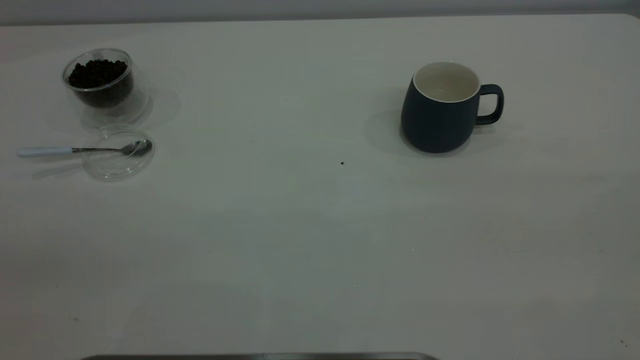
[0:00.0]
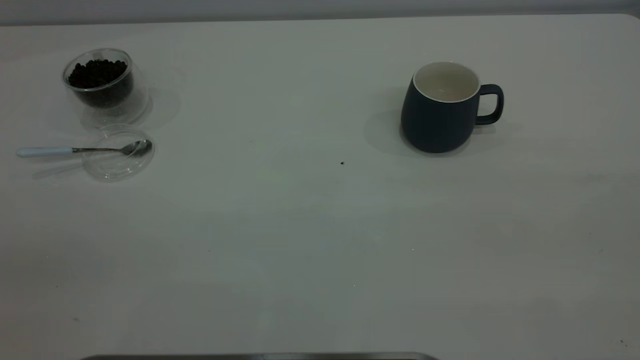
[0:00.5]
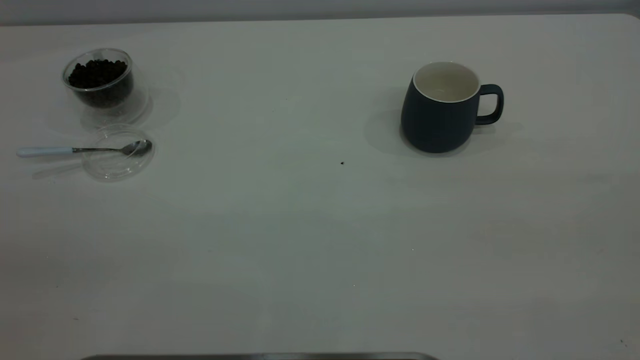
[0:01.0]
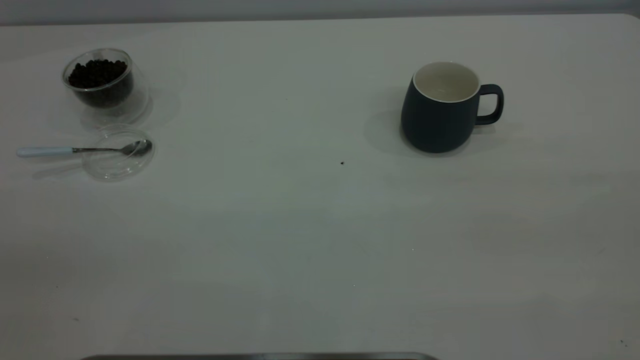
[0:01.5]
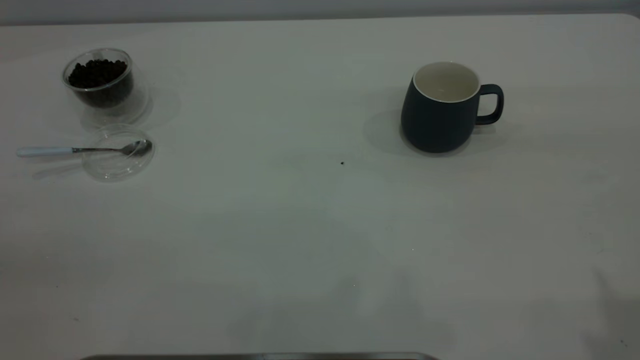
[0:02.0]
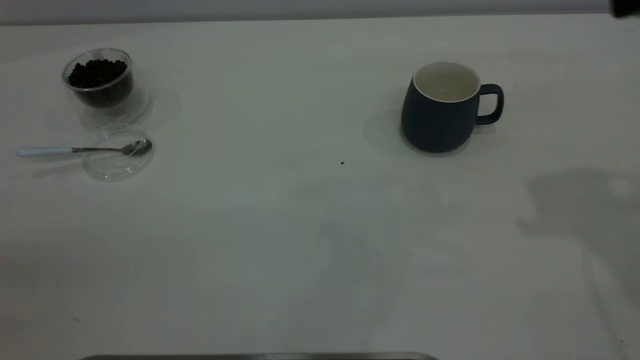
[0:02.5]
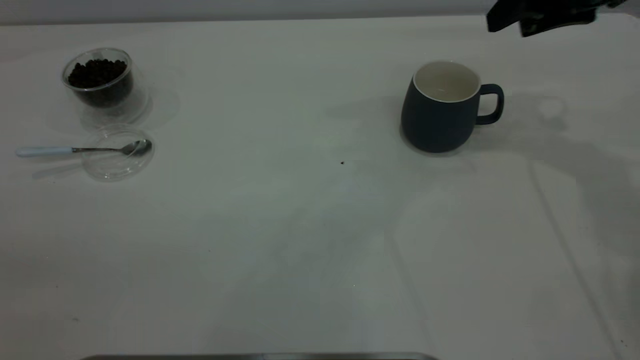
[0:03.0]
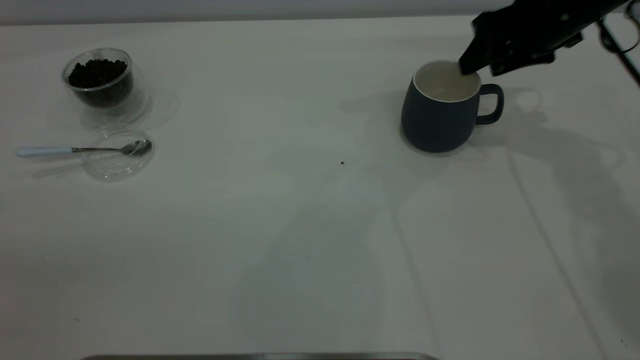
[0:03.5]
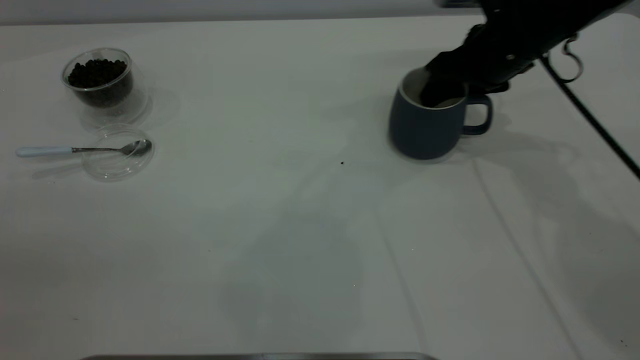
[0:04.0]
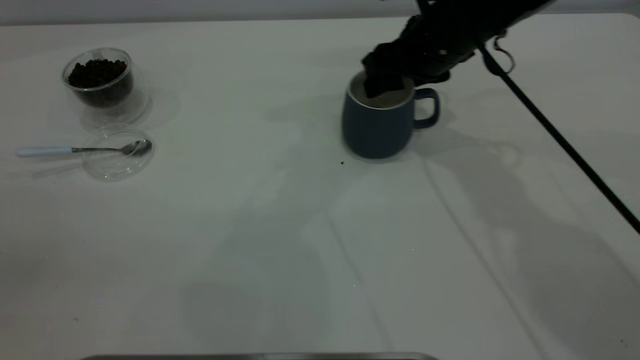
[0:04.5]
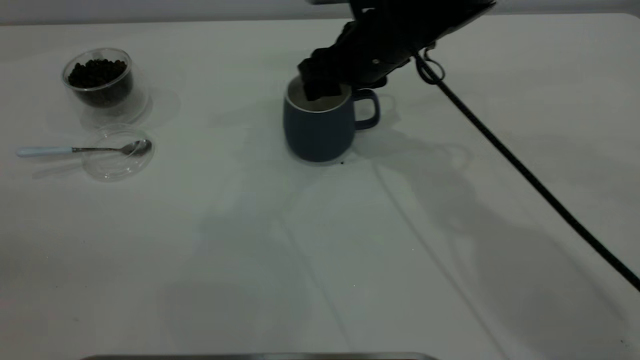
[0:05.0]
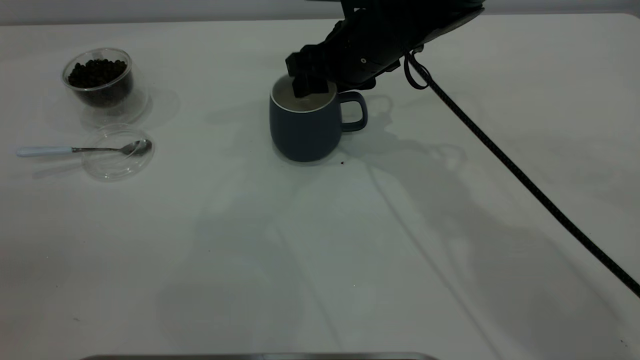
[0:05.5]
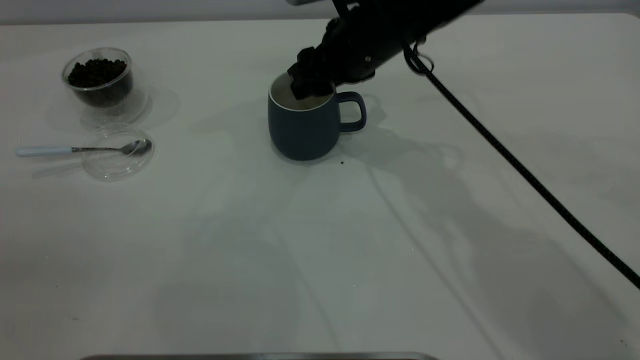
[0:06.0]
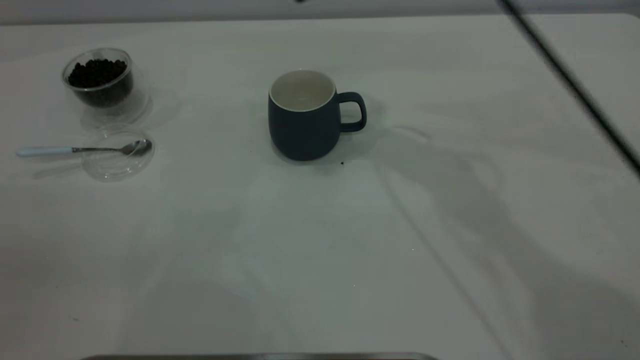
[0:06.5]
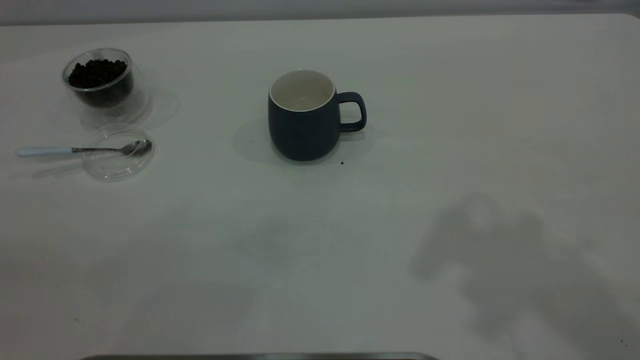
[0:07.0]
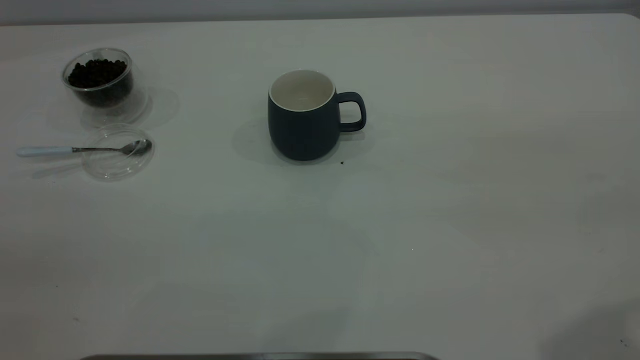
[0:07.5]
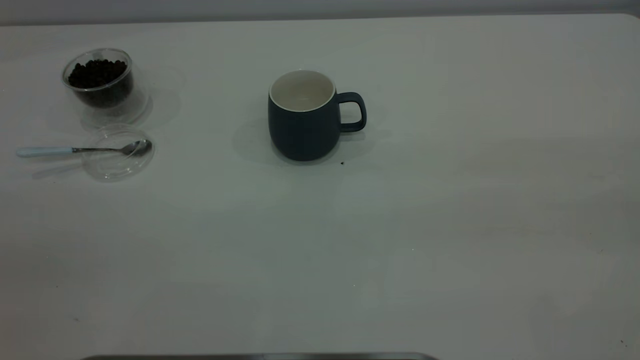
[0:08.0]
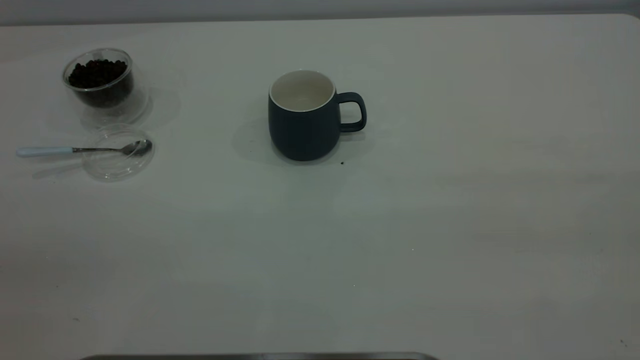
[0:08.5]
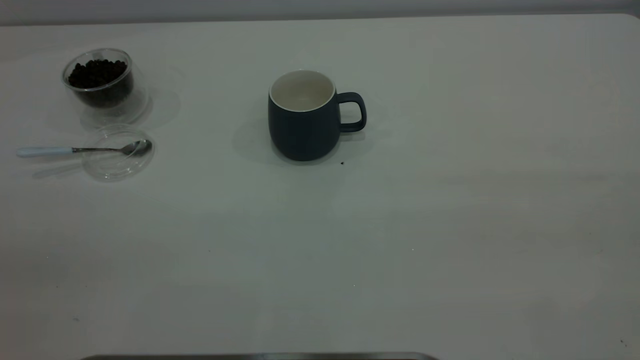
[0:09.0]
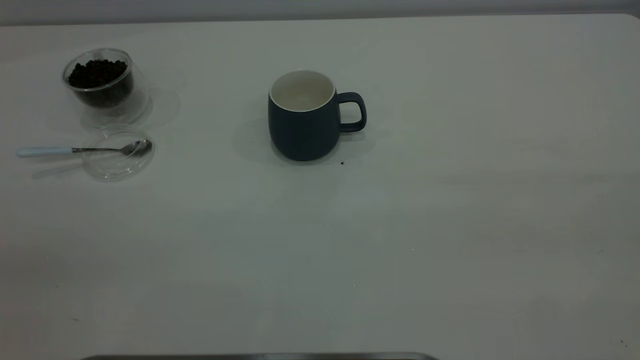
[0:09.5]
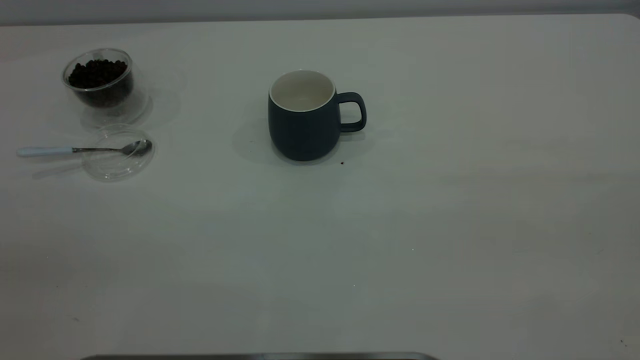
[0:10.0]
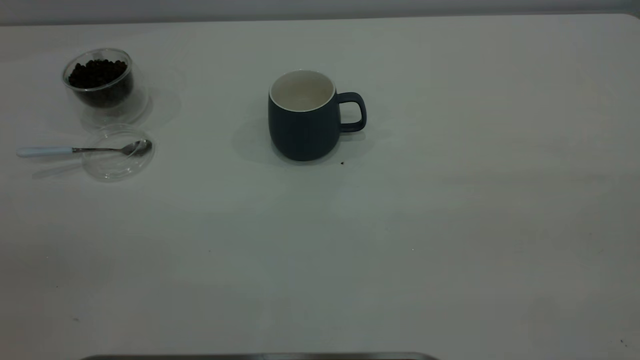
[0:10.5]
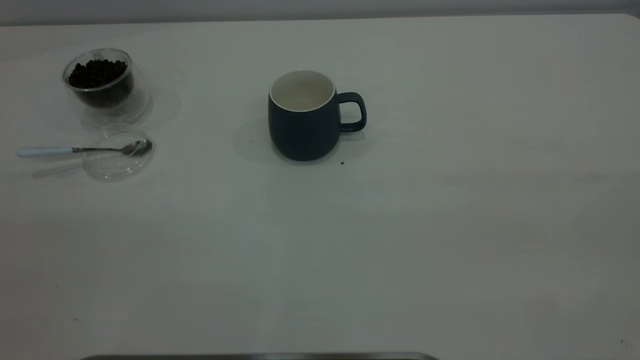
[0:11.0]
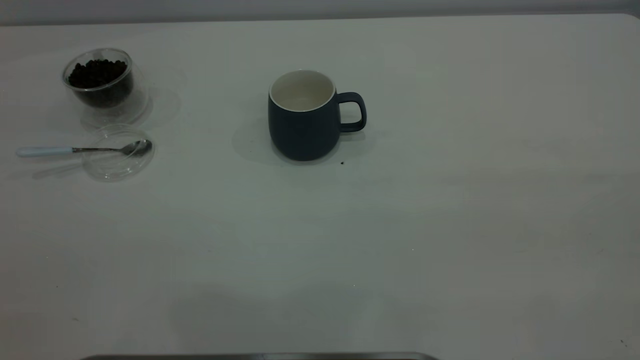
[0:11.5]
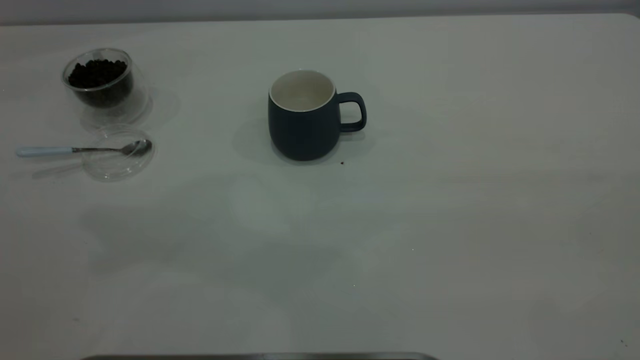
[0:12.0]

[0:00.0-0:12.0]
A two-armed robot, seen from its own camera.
Task of the whole recording: the right gripper place the grey cup in the center of the table, the left gripper take the blue spoon from the cup lid and scoop out the coffee beans from the coffee cup and put them into the grey cup, the left gripper put the spoon back into the cup lid.
Step, 0:00.0 to 0:06.0: Move the cup to the center of view.
0:02.0 to 0:04.0: The right gripper goes approximately 40 cm forward and downward.
0:04.0 to 0:06.0: The right gripper is displaced to the left by about 15 cm.
0:06.0 to 0:08.0: The right gripper is displaced backward, to the right and upward by approximately 50 cm.

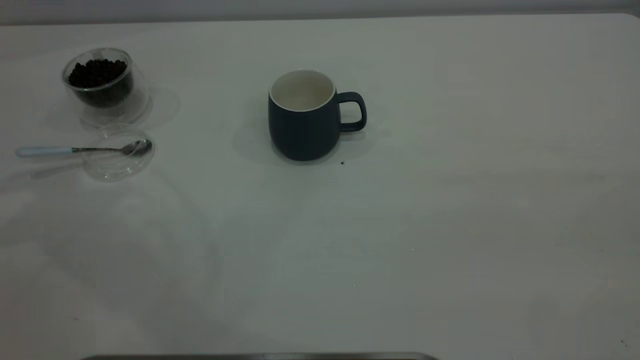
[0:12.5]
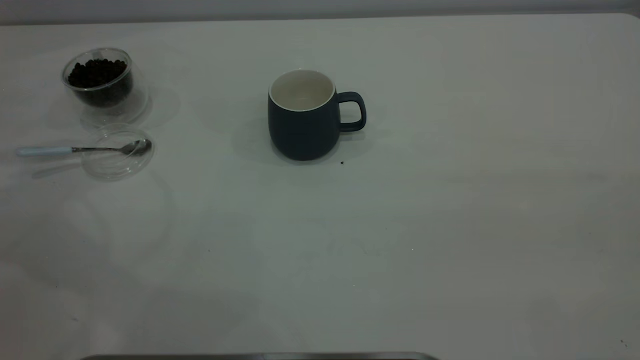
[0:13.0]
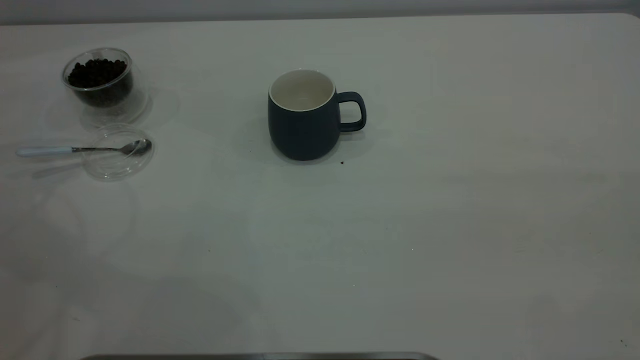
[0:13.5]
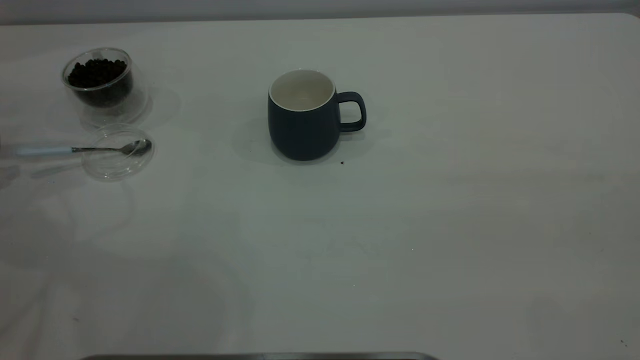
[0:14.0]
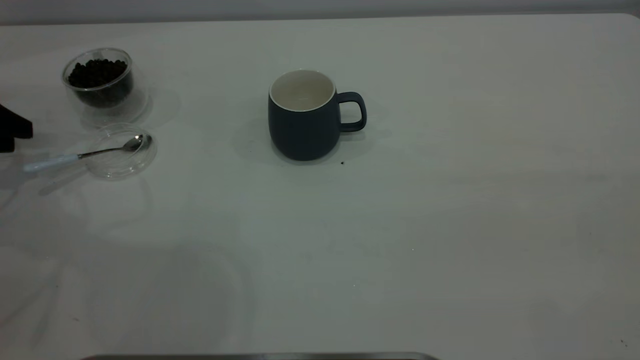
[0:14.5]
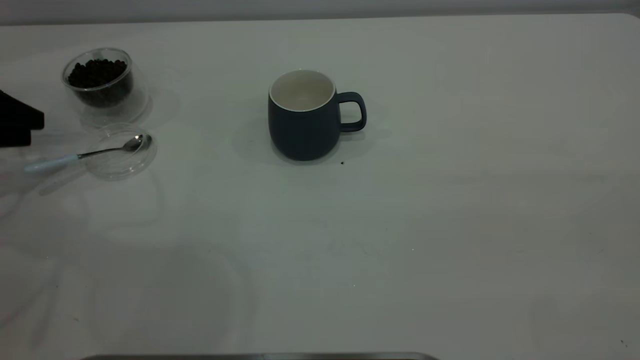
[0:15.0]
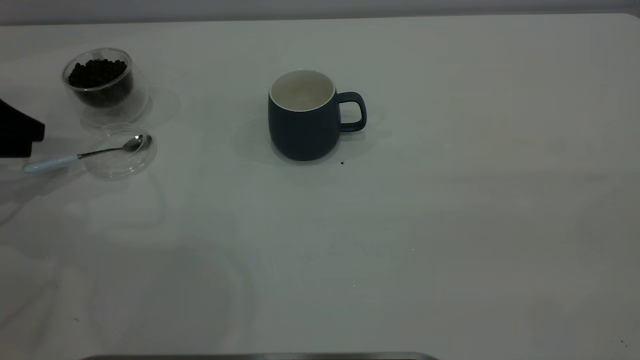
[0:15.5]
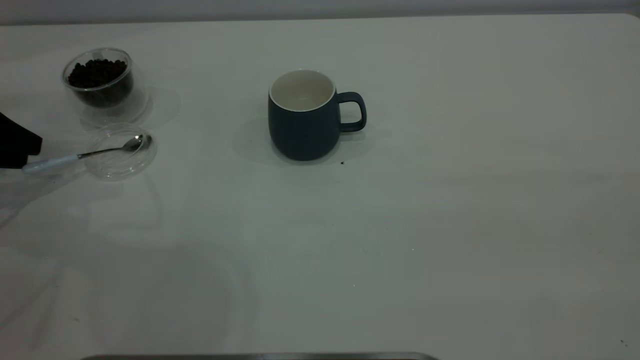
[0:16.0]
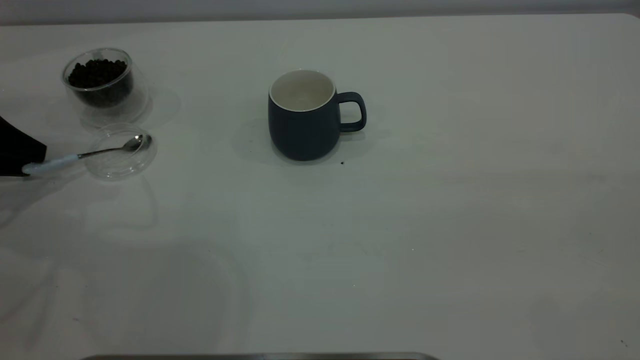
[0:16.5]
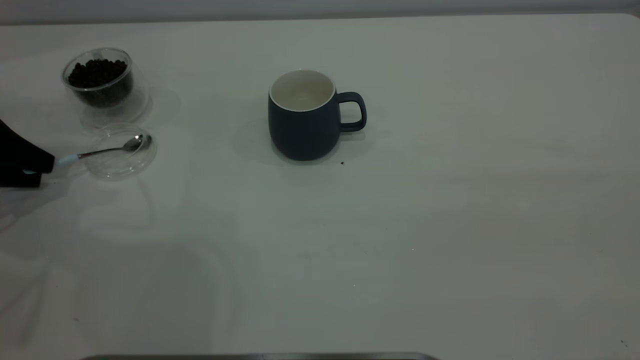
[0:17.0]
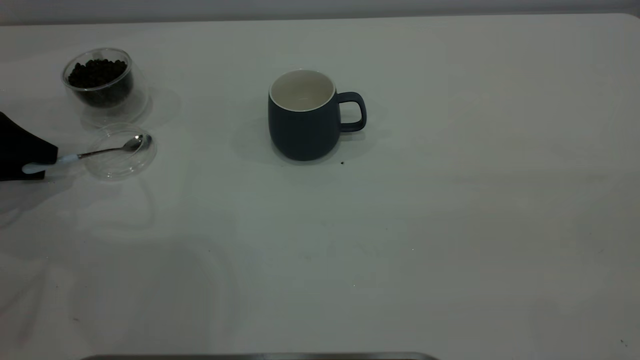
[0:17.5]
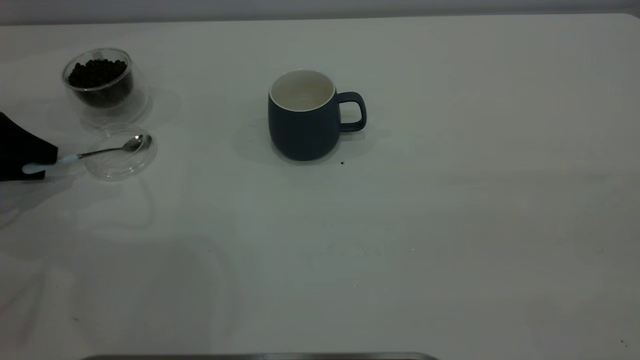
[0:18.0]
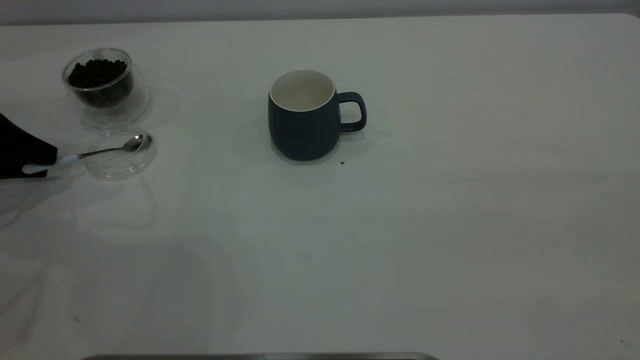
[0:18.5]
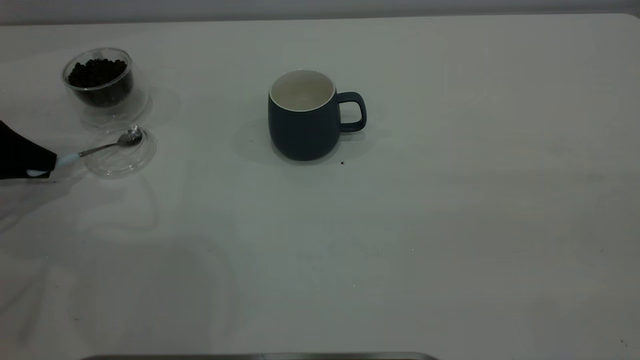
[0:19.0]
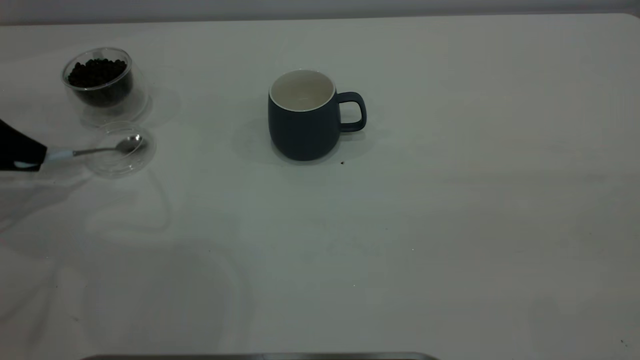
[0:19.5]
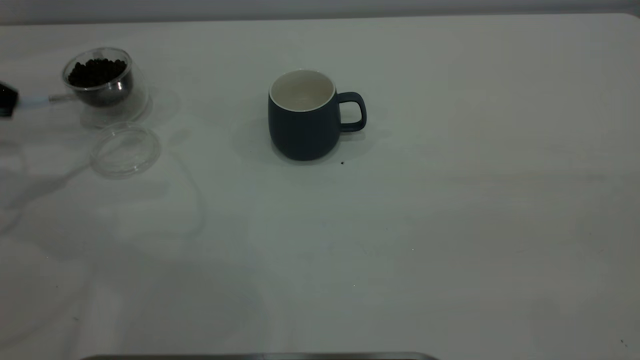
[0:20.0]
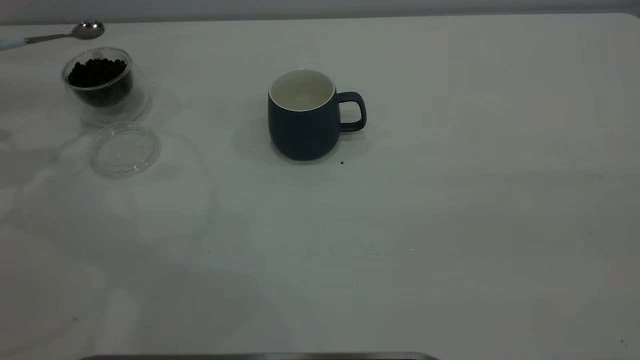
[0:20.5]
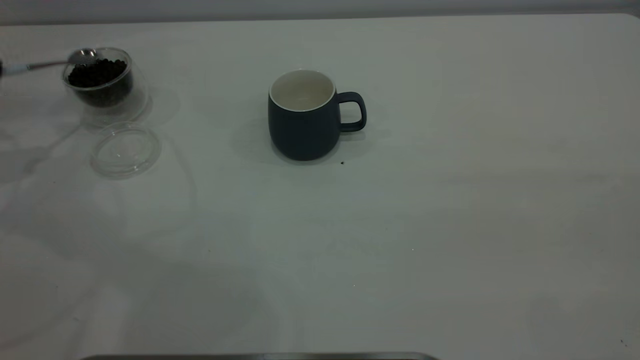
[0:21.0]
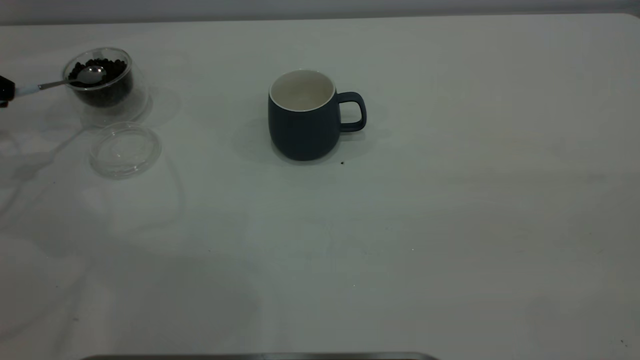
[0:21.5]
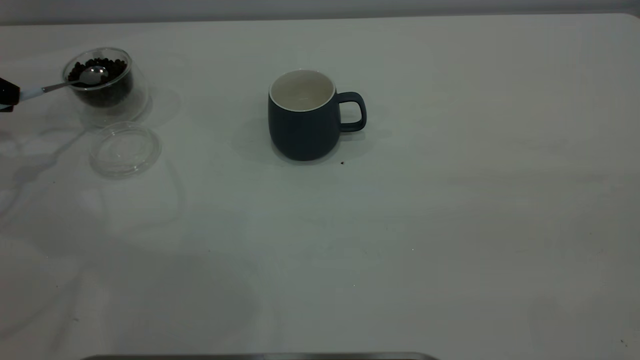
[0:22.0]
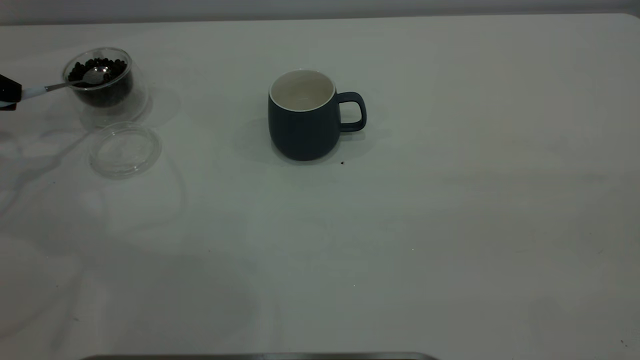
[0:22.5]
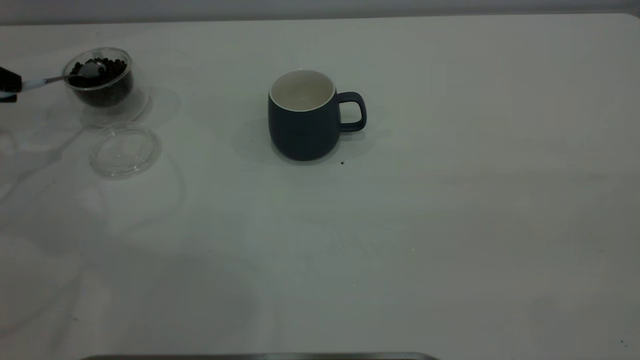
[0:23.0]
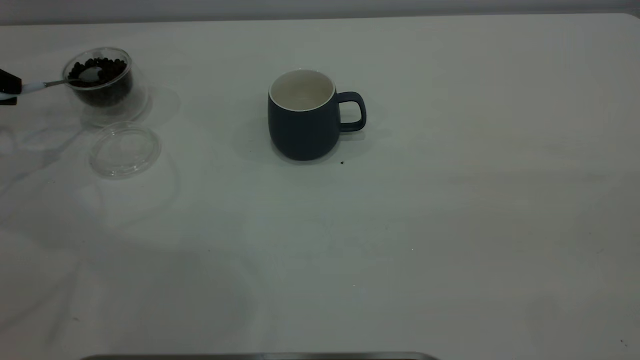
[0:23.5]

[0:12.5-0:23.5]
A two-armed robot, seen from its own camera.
Task of the whole recording: the right gripper place the grey cup in the center of the table, the left gripper take the blue spoon from the cup lid and scoop out the coffee beans from the coffee cup and put them into the grey cup, the left gripper put the spoon back into the cup lid.
0:12.5 to 0:14.5: The left gripper shifts about 15 cm downward, and opens.
0:18.0 to 0:20.0: The left gripper travels upward by approximately 10 cm, and closes.
